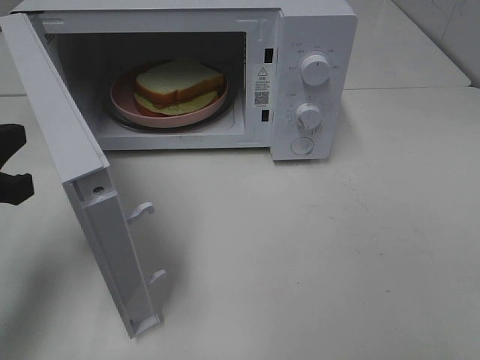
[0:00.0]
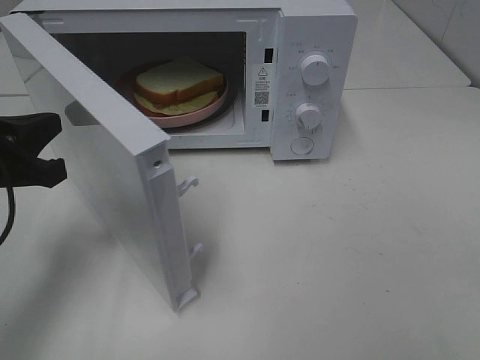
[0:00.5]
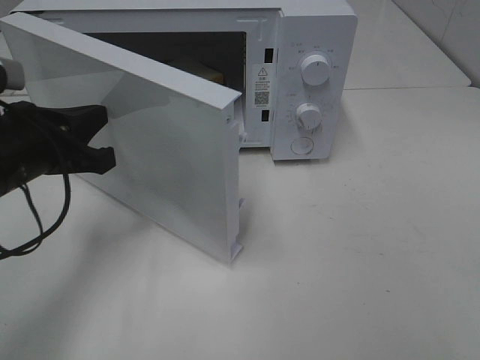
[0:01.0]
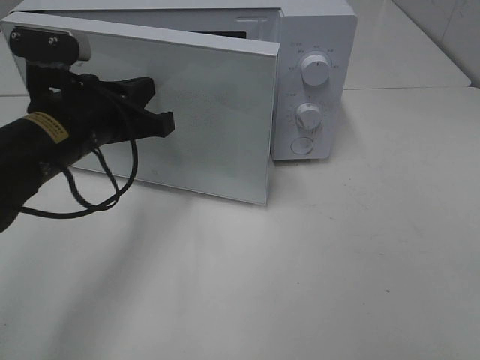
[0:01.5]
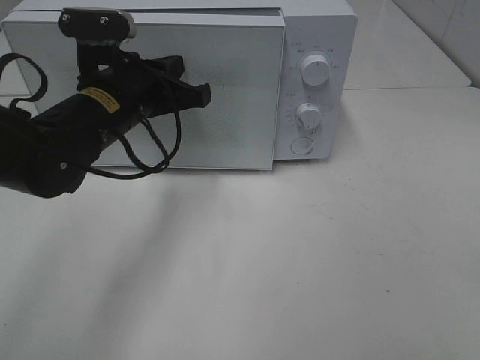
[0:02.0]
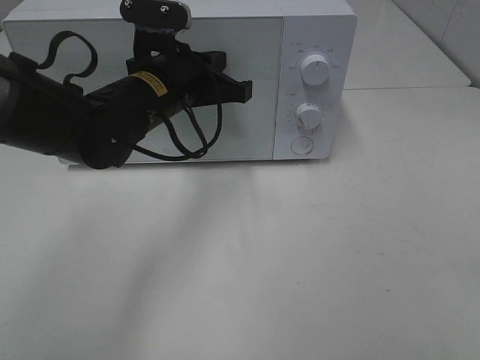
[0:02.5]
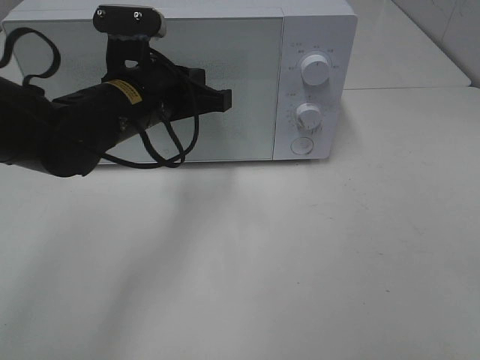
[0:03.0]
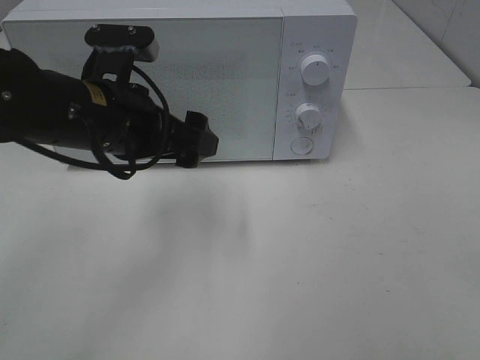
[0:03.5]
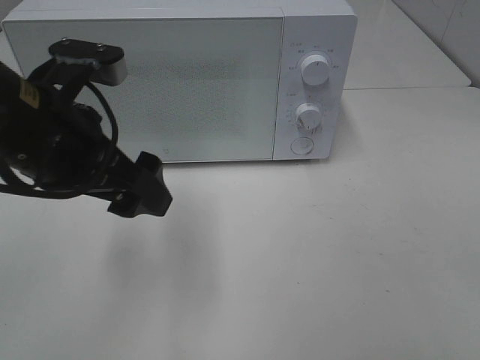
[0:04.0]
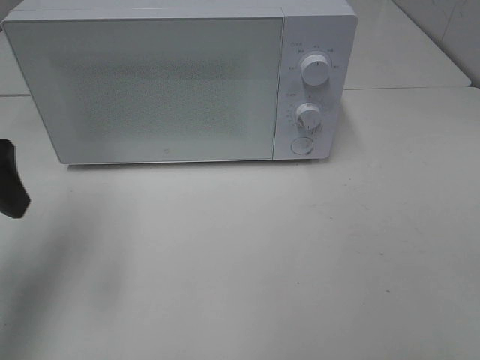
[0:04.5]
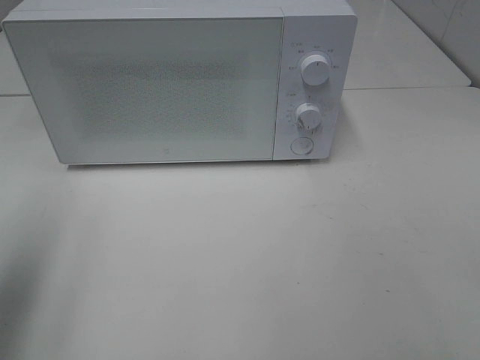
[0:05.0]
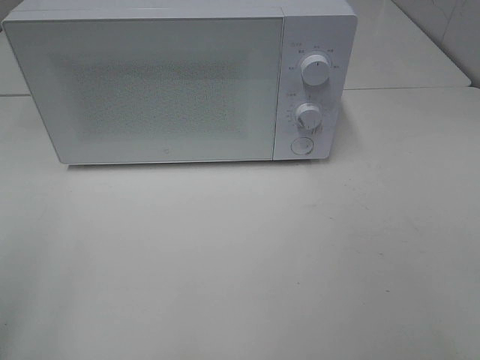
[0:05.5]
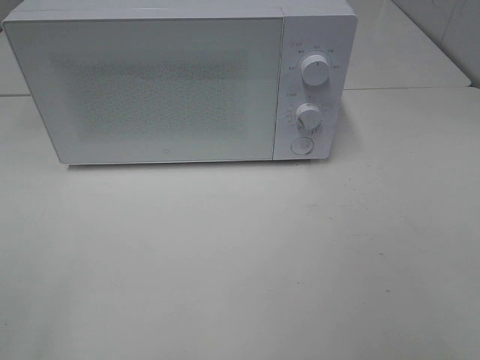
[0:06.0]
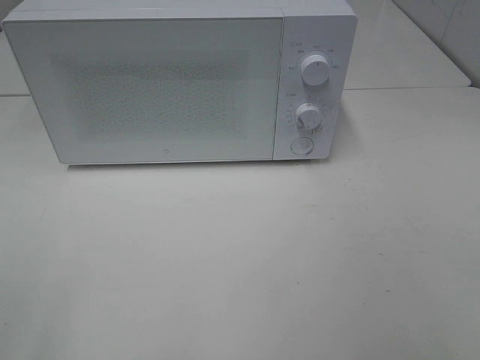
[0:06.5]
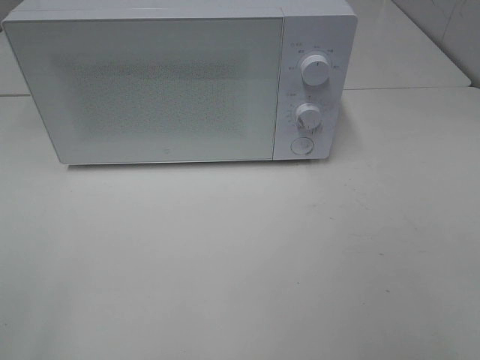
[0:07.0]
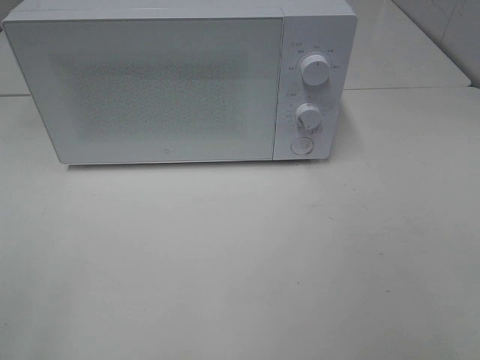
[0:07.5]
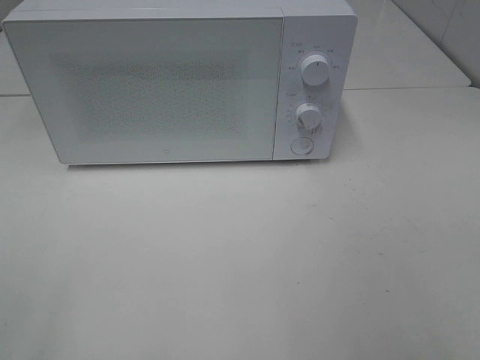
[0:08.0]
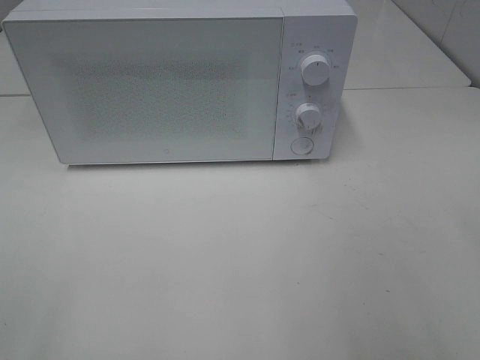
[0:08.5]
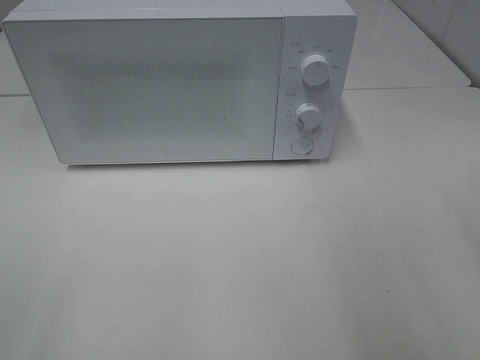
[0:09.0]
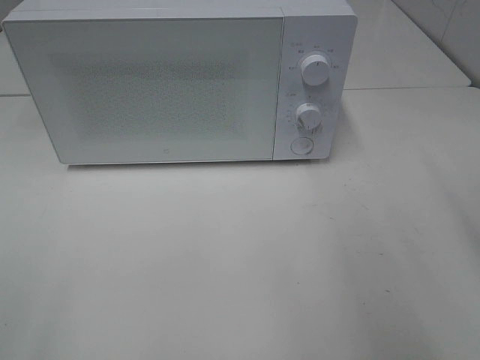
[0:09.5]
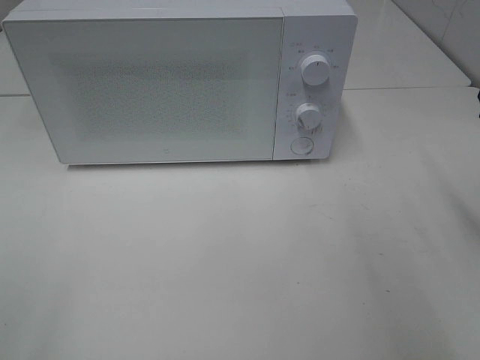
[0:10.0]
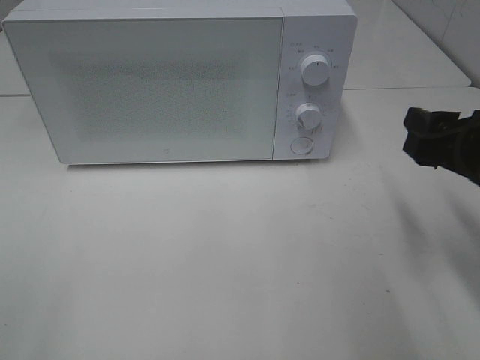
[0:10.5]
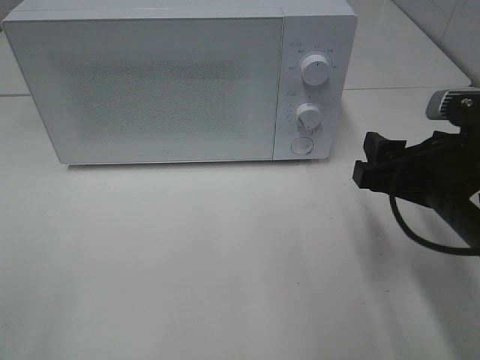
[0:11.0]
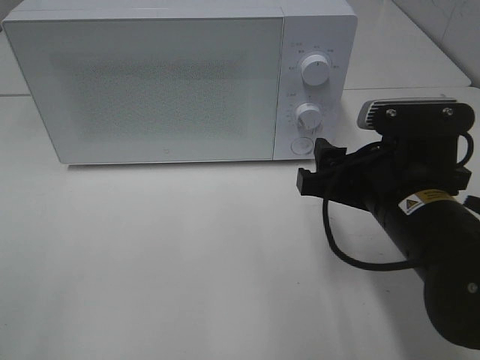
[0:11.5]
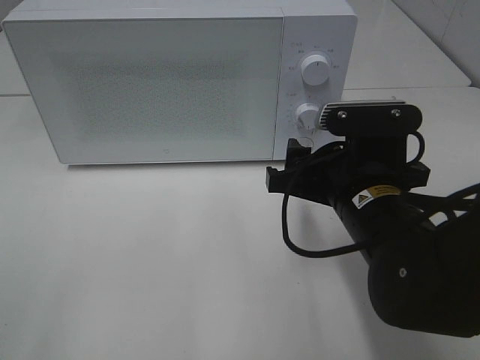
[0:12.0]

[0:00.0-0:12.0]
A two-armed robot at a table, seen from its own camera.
Task of the whole recording: Heat Sandwich.
Step, 0:00.0 to 0:03.5: Left hand: close the microwave door.
0:00.0 to 0:02.0: The left gripper shifts about 20 cm to the right and forward.
0:02.0 to 0:04.0: The left gripper heads backward and upward, covering about 10 cm, and opens up.
0:04.0 to 0:06.0: The left gripper moves backward and to the left, about 30 cm.
0:10.0 to 0:12.0: The right gripper goes some 20 cm to the left and downward.

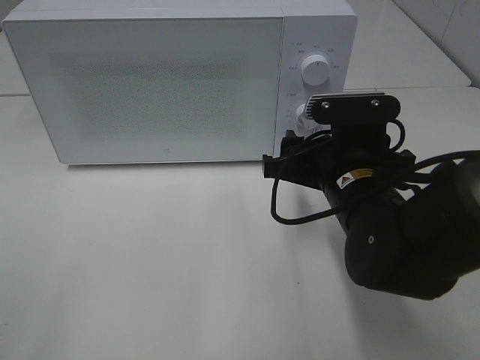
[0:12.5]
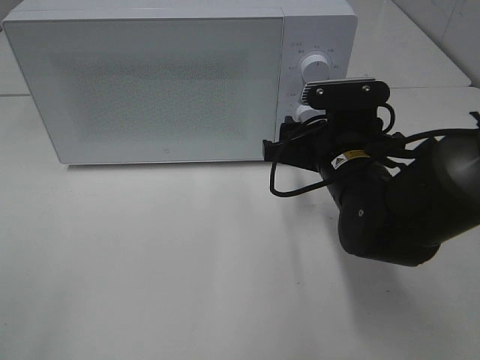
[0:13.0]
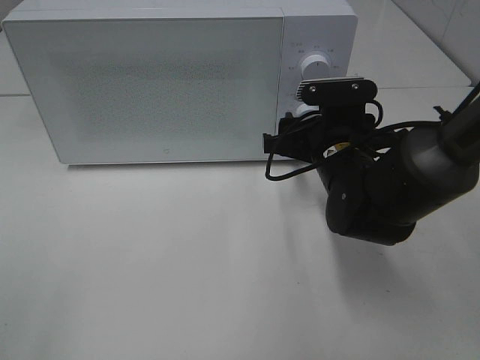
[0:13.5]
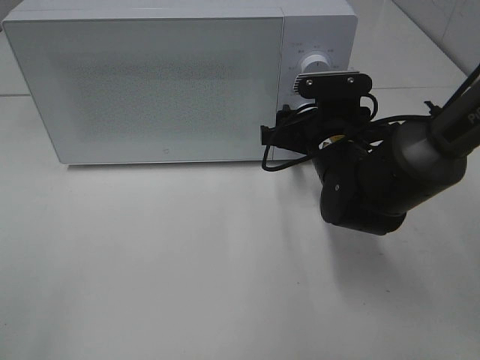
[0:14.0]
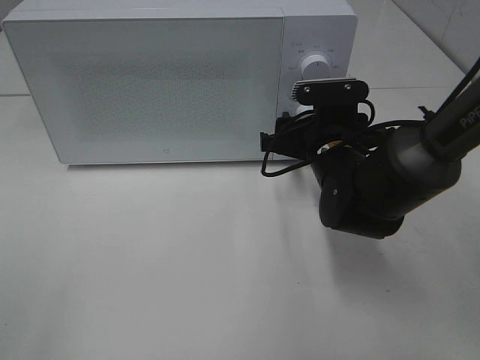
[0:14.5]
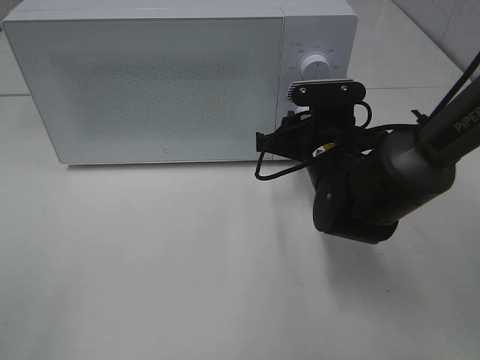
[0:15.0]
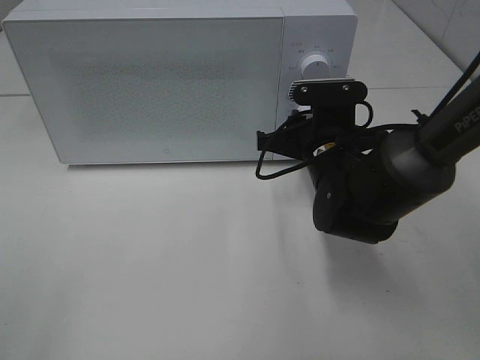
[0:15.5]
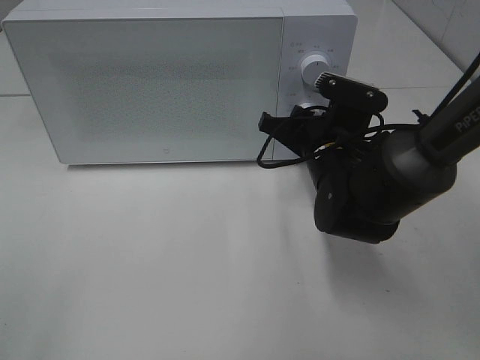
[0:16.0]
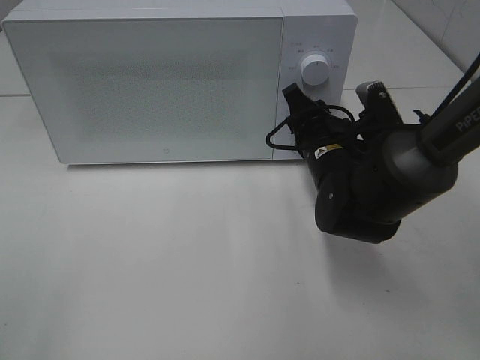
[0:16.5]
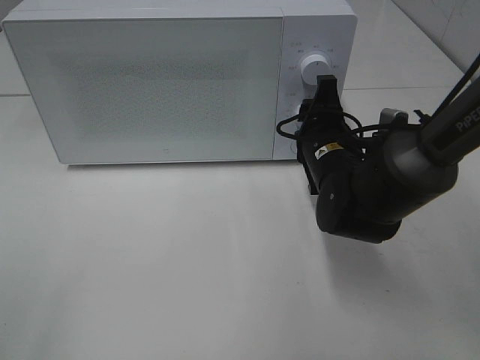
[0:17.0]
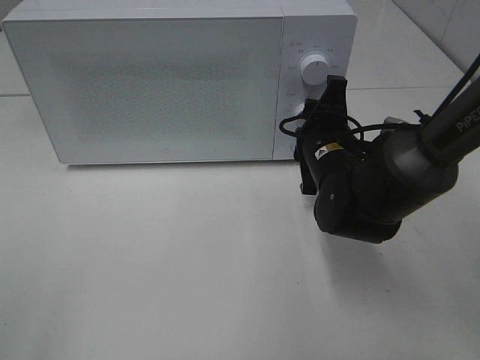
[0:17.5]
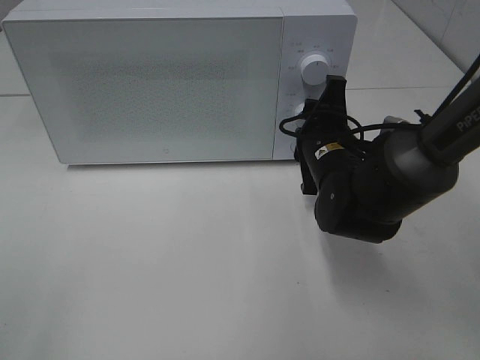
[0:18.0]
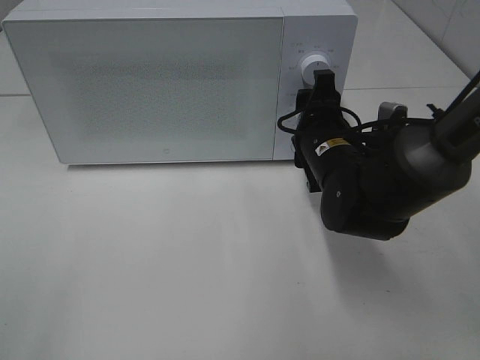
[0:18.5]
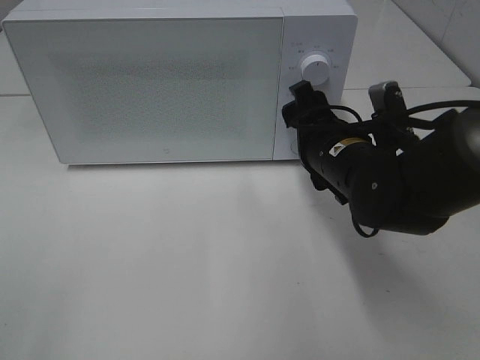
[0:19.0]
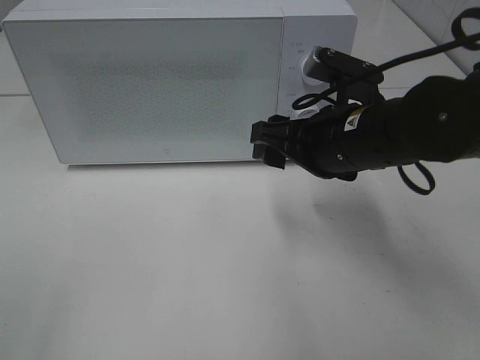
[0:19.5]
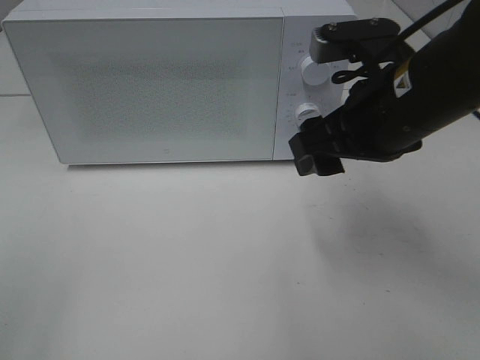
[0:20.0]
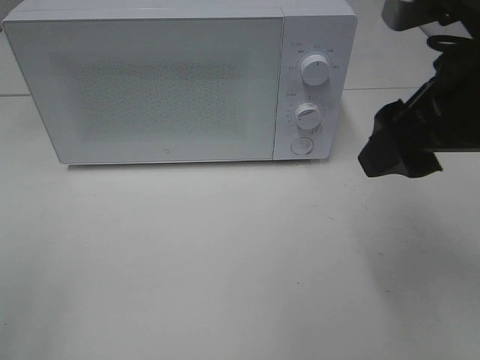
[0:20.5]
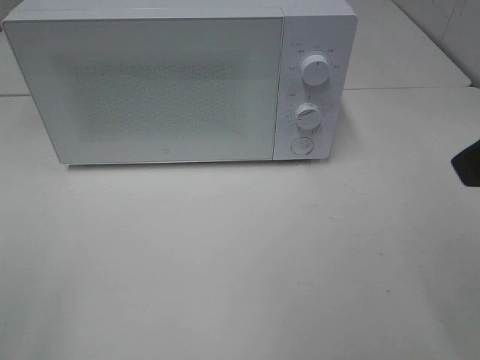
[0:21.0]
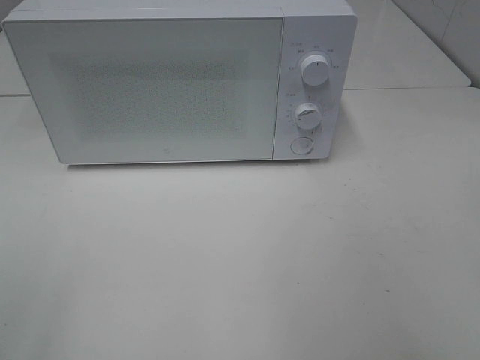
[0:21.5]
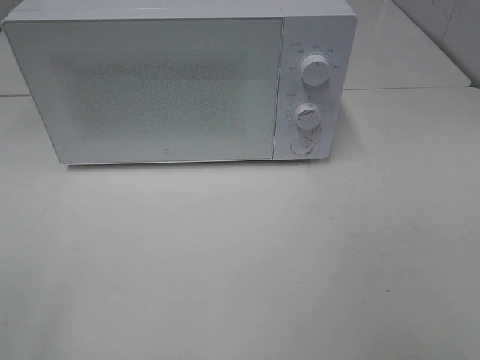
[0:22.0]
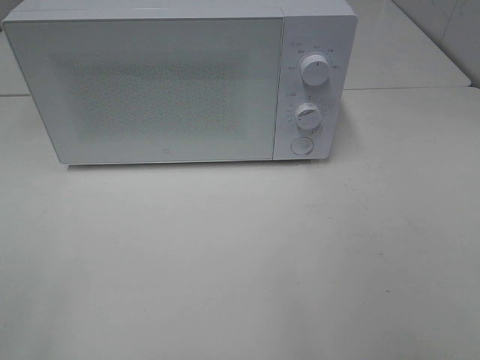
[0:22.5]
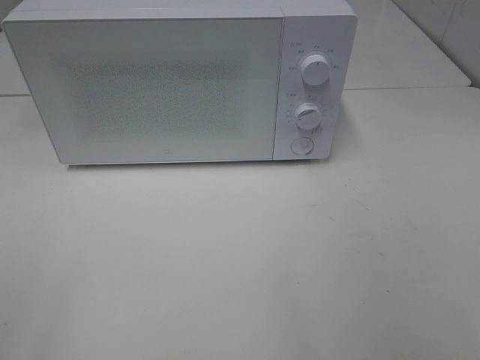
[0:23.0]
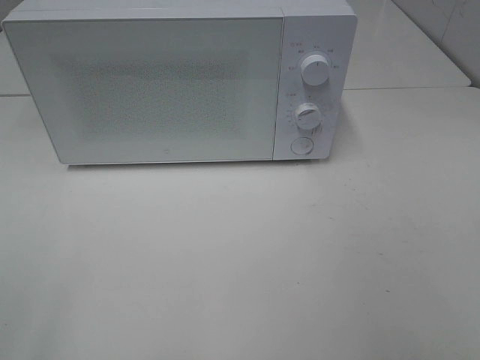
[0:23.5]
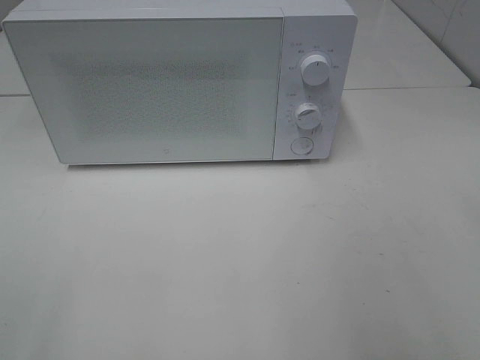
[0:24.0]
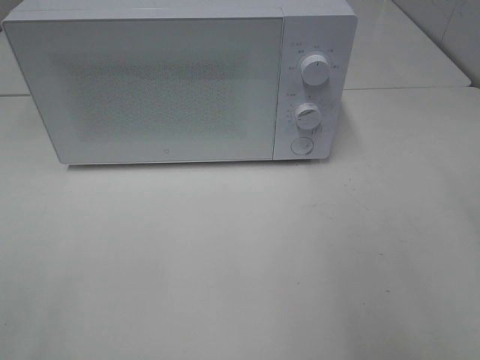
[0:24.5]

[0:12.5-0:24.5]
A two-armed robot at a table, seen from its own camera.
Task of the whole recording: Heat Sandwich.
Step, 0:12.5 to 0:19.0: Right hand: twist timer button.
0:12.5 to 0:14.5: The right gripper is displaced forward by about 10 cm.
0:18.5 to 0:20.5: The right gripper shifts approximately 20 cm upward and backward.
0:20.5 to 0:22.5: The right gripper moves backward and to the right, approximately 25 cm.

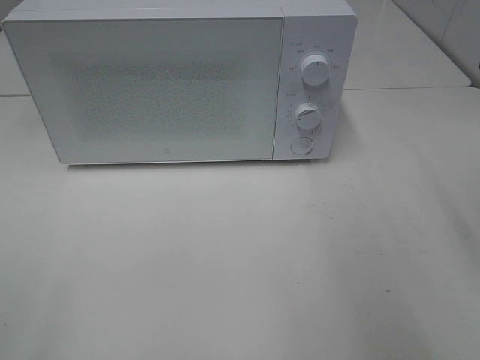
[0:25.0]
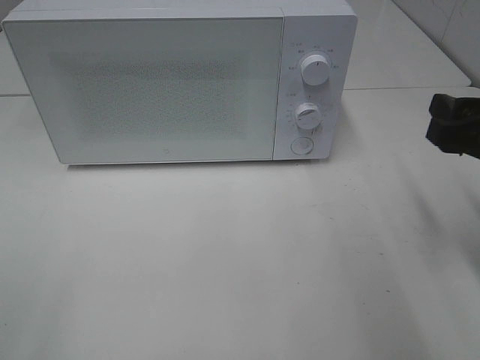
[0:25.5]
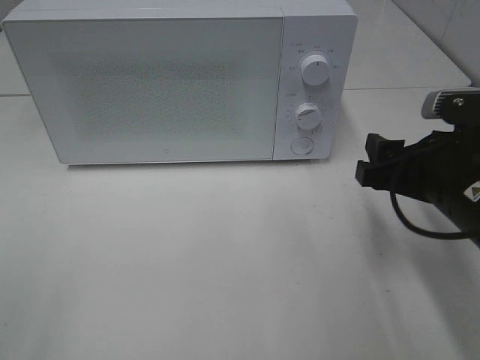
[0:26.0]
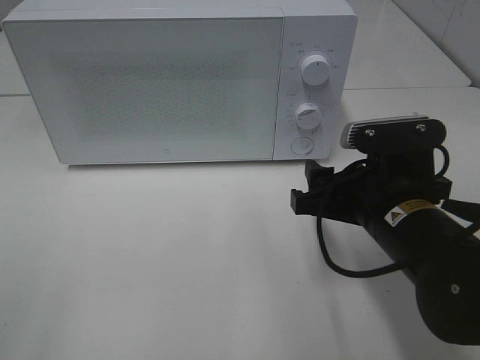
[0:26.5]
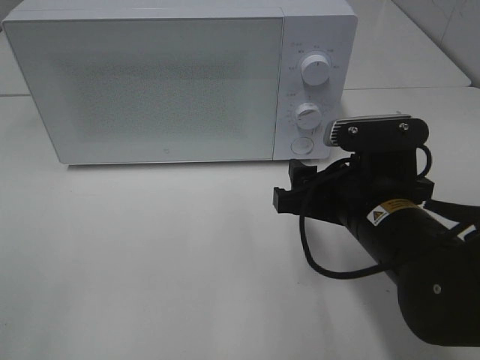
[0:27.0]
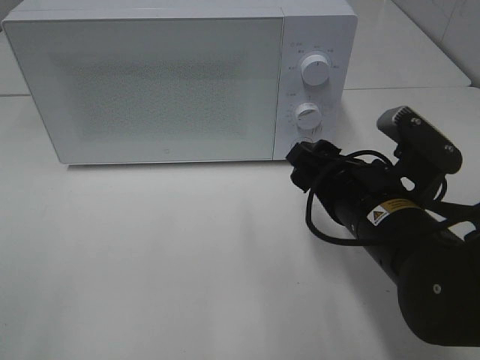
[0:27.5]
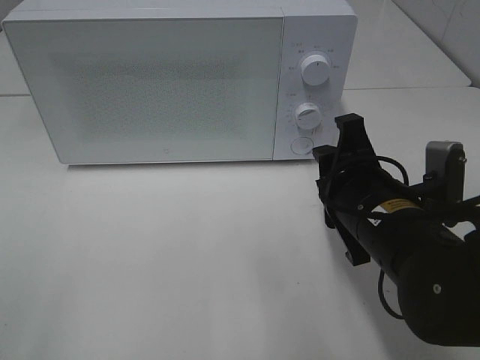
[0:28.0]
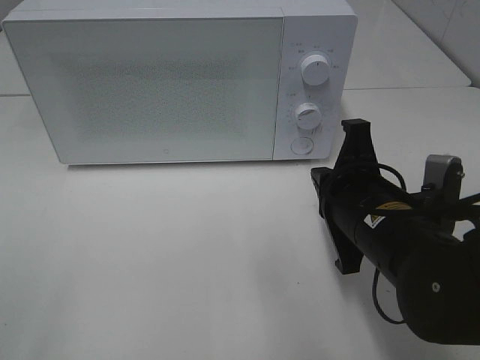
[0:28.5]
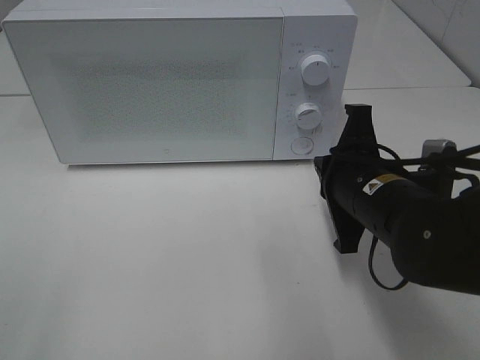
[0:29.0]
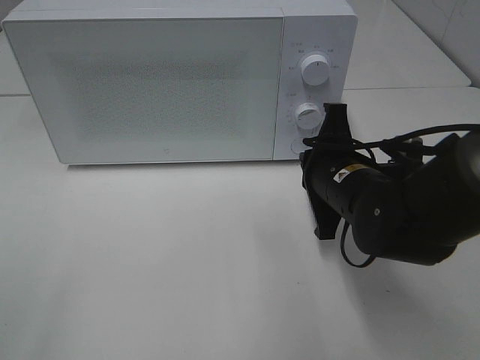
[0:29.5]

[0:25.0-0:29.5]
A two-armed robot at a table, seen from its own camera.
Task of the whole recording: Heat Sandwich.
0:25.0 to 0:27.0: The right gripper shifts roughly 20 cm to the left and downward.
0:27.0 to 0:29.5: The right gripper goes roughly 5 cm forward, and closes.
